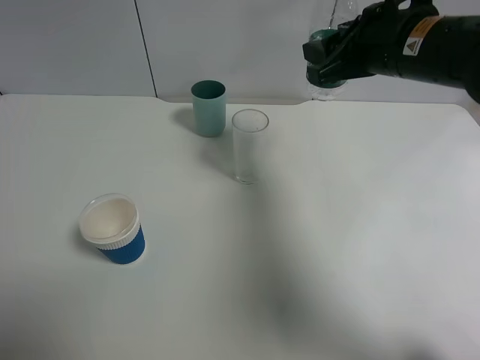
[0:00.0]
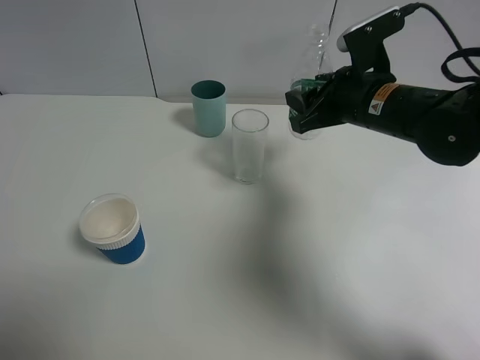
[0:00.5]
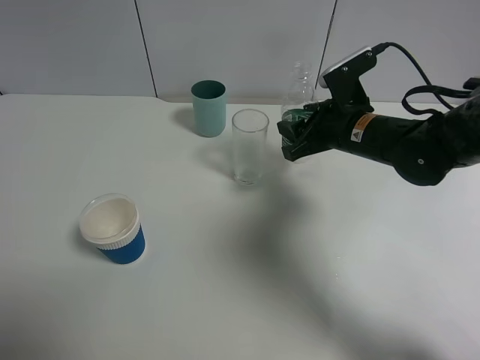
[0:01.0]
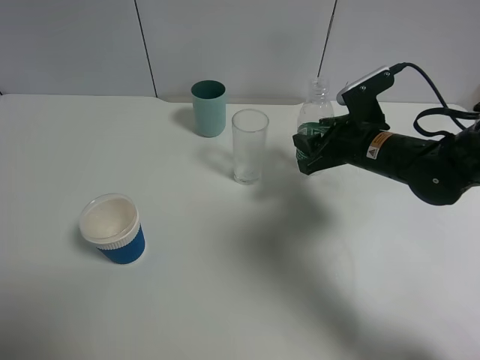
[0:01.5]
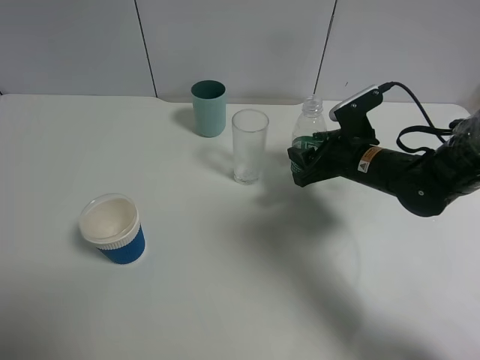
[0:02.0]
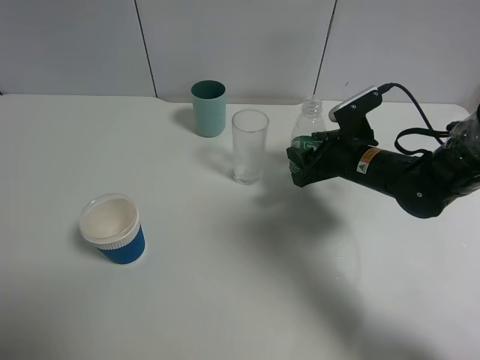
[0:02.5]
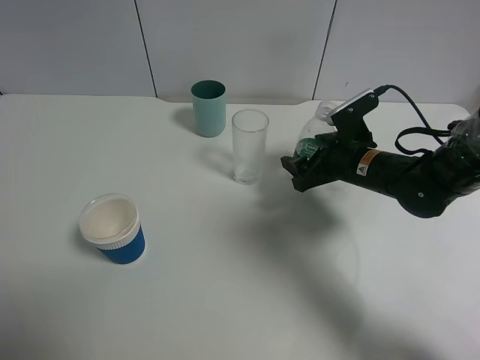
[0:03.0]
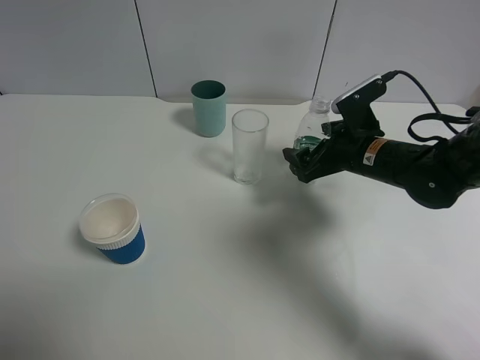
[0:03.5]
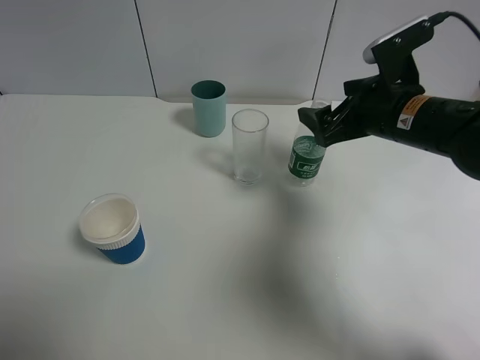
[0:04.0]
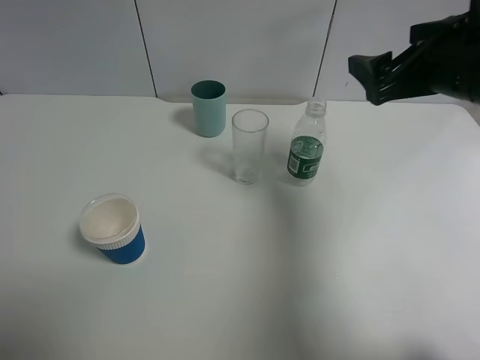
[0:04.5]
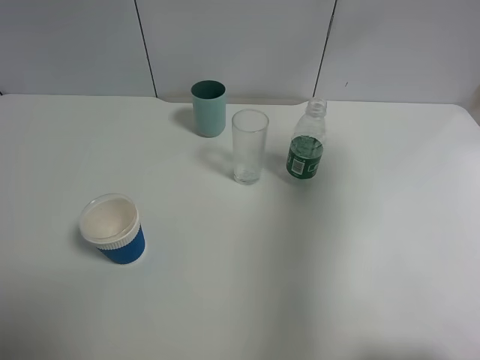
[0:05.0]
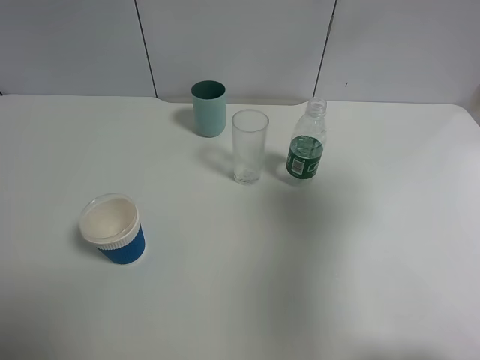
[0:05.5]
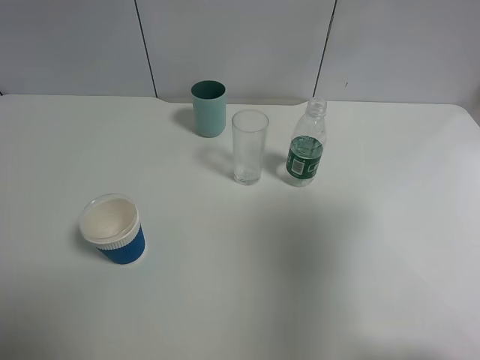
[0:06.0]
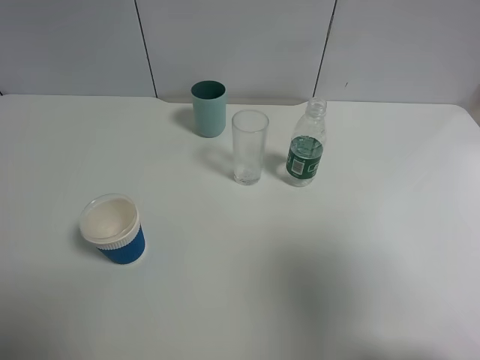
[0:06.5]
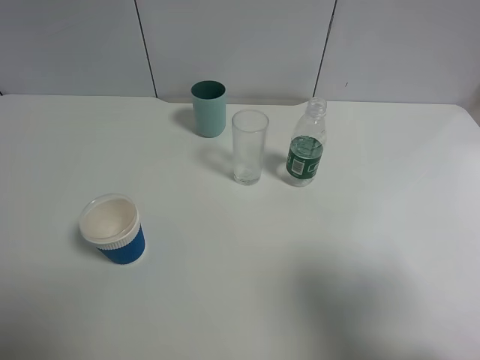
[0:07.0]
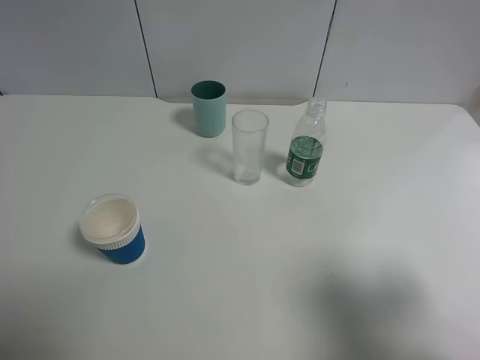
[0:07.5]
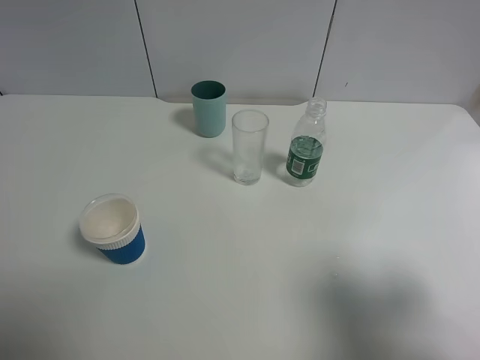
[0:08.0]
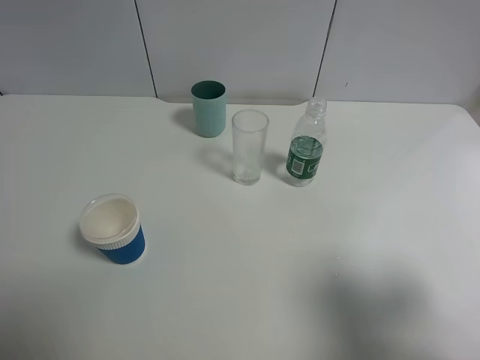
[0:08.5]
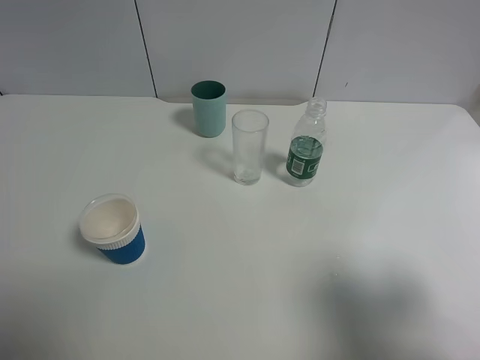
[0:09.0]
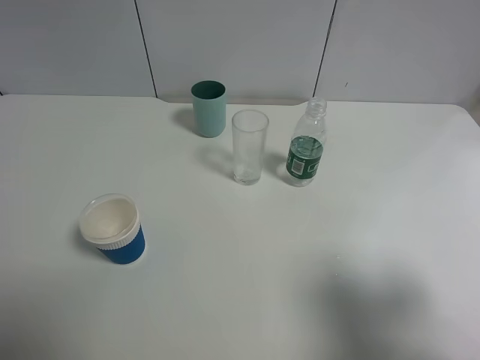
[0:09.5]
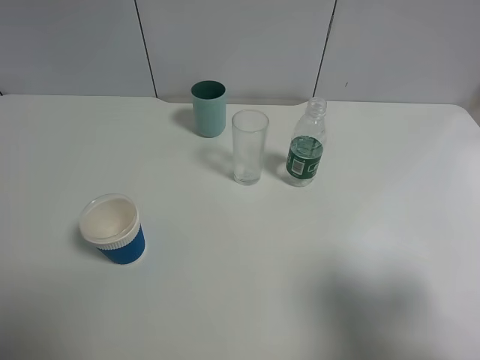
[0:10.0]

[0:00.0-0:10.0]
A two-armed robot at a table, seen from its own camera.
Task of the whole recording: use a gripper to hold the bottle of the drink and pour it into a random cup.
Step, 0:00.0 to 0:03.5: Place the mineral water bottle on the table with the right gripper.
0:00.0 to 0:02.0: The right gripper is displaced downward by about 15 cm.
0:02.0 to 0:04.0: The right gripper heads upward, covering approximately 10 cm, and opens up.
0:04.0 to 0:06.0: The right gripper shifts some 30 cm backward, upward and to the right.
0:06.0 to 0:08.0: The right gripper moves downward, about 10 cm.
0:08.0 to 0:10.0: The two grippers keep their place.

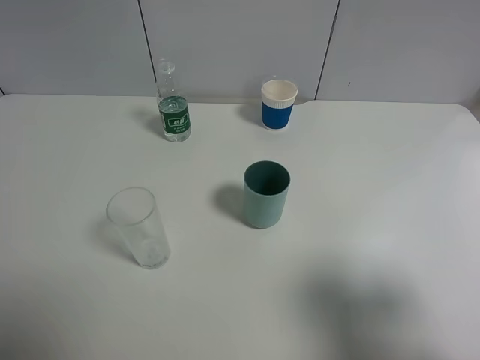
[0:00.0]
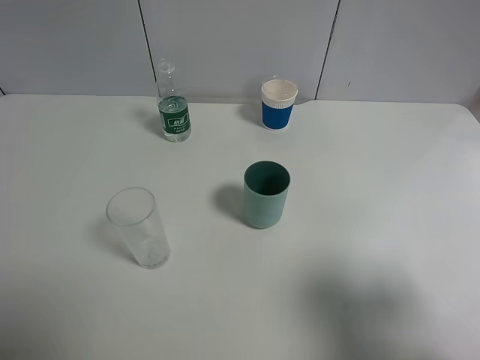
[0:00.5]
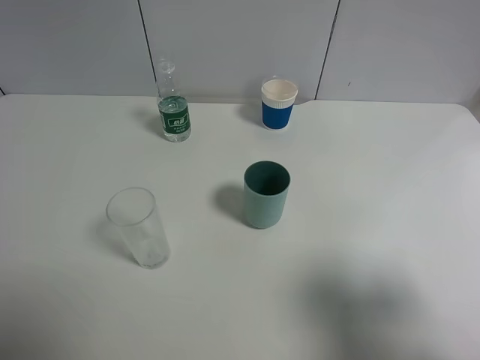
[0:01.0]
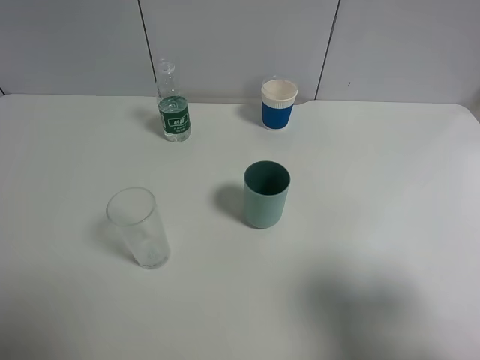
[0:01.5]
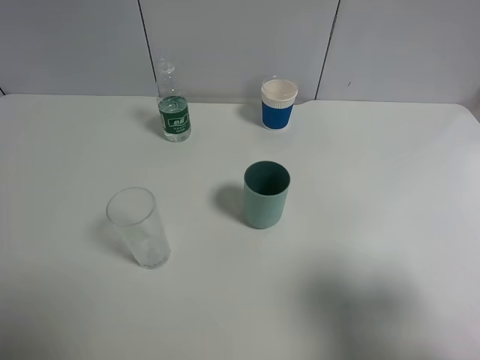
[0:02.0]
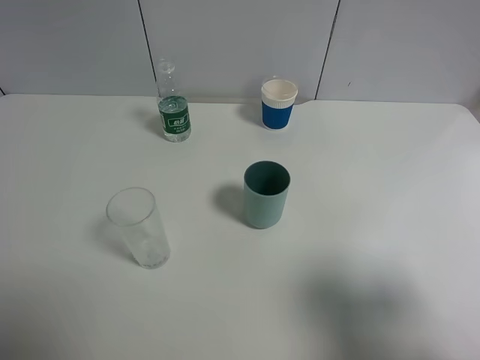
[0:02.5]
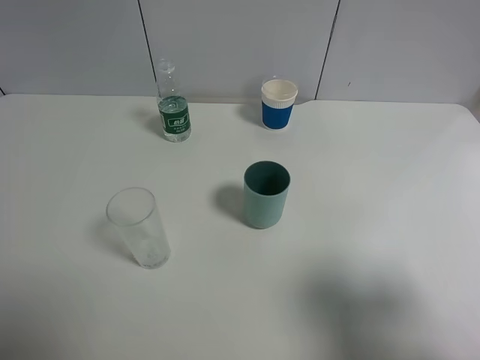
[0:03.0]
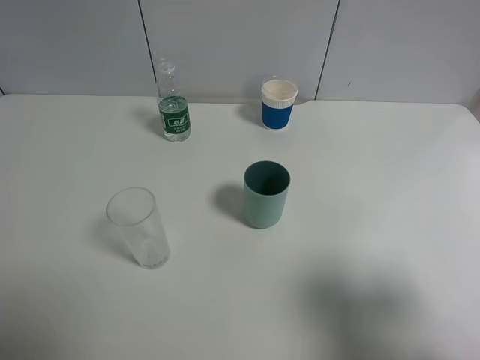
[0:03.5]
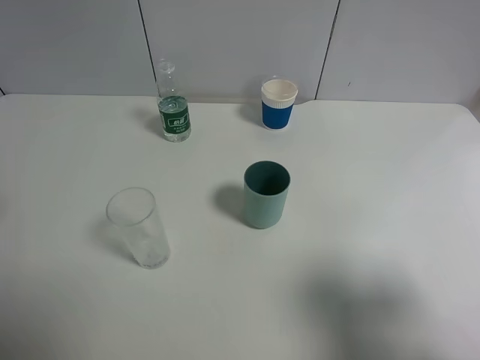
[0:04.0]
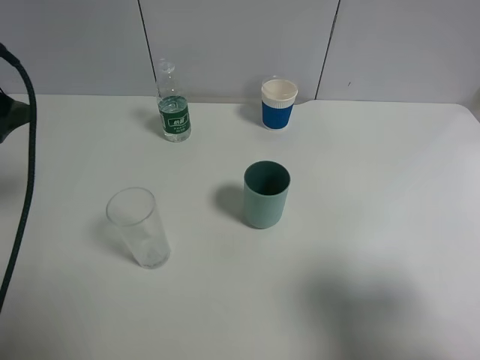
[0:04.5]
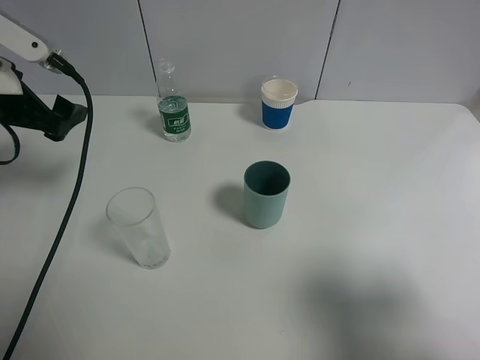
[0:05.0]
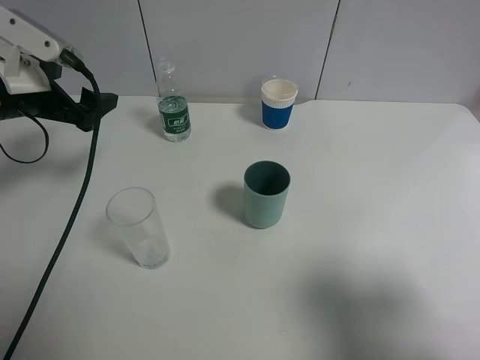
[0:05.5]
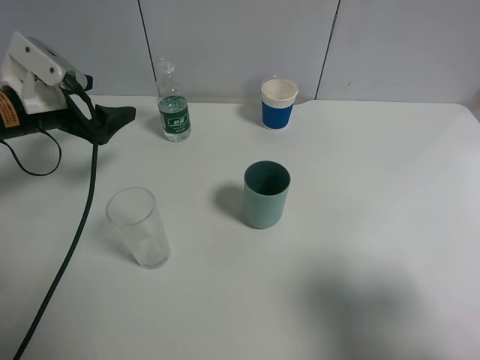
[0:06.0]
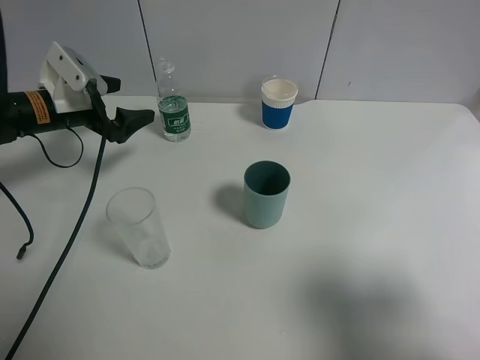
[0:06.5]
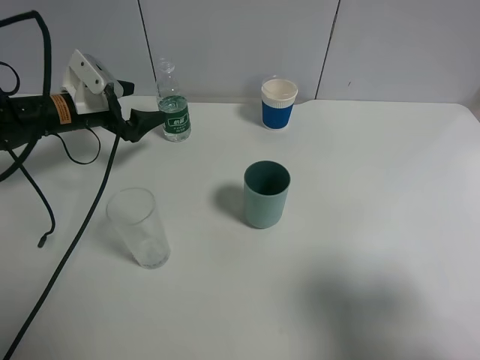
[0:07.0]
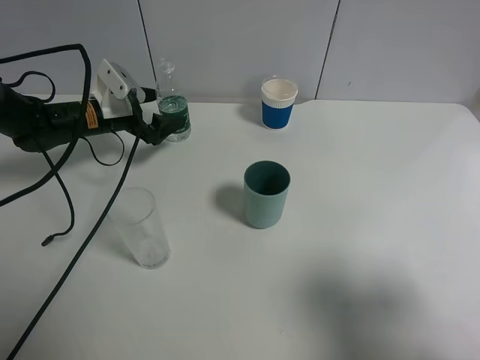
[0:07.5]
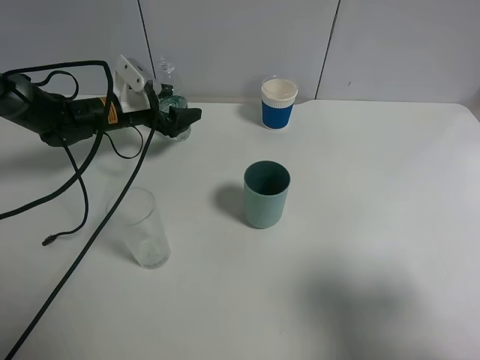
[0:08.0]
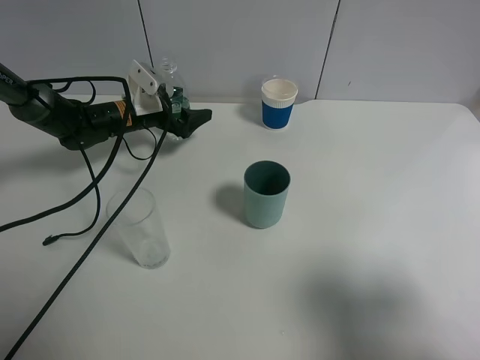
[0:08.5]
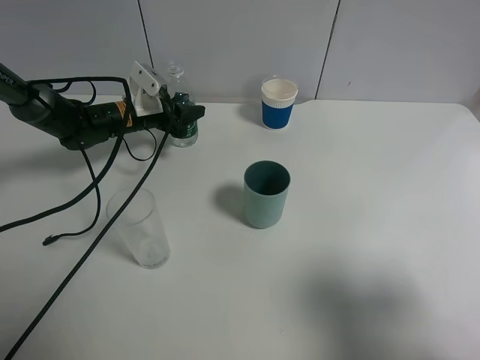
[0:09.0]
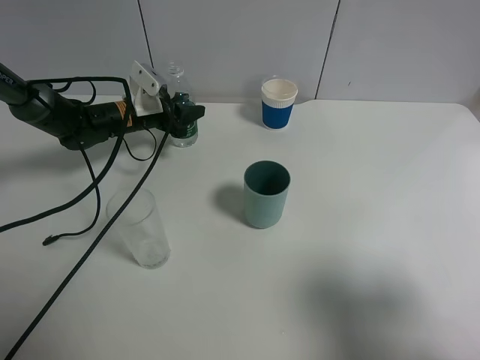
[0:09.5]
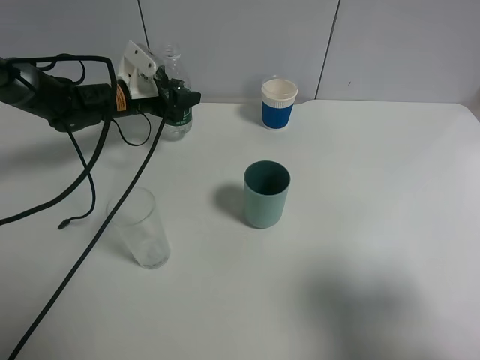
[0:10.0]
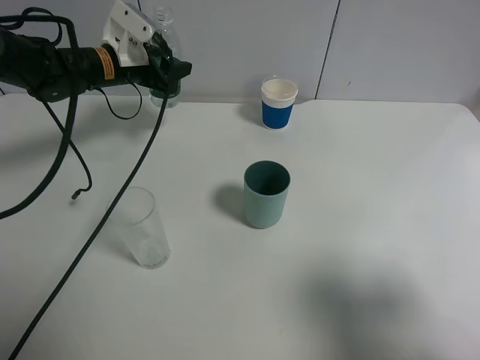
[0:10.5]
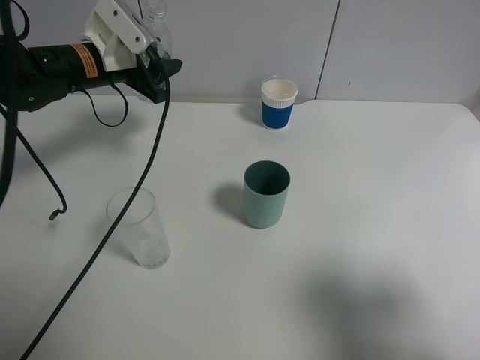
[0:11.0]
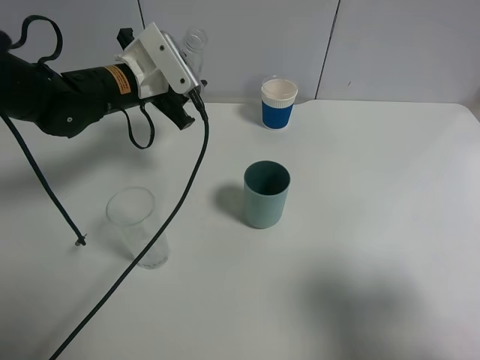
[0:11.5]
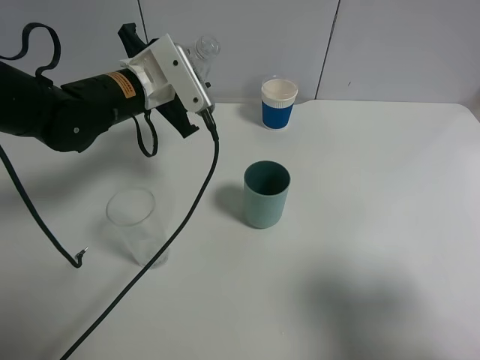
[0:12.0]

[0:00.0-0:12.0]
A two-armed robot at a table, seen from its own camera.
Task of the whole recording: use a gripper to hold the bottle of the drink and pour it into a random cup.
Step, 0:00.0 to 0:09.0: Grasp the mineral water bottle with the left gripper.
0:00.0 to 0:02.0: The two grippers keep their place.
0:04.0 to 0:06.0: The left gripper heads forward and downward, covering about 20 cm.
0:06.0 to 0:08.0: The left gripper travels forward, downward and to the right by some 15 cm.
0:08.0 to 0:10.0: The left gripper closes its fingers.
0:10.0 to 0:12.0: The left gripper shifts some 15 cm backward, upward and to the right.

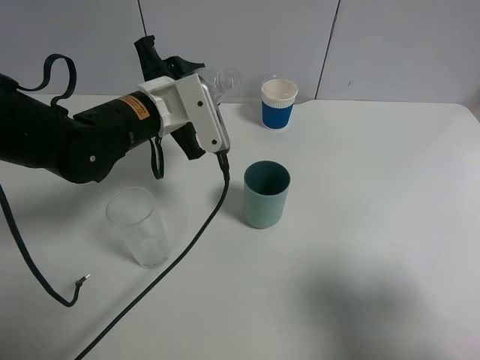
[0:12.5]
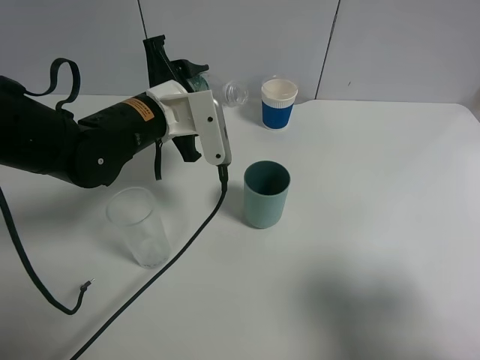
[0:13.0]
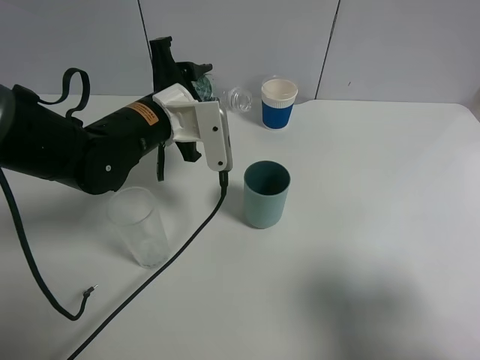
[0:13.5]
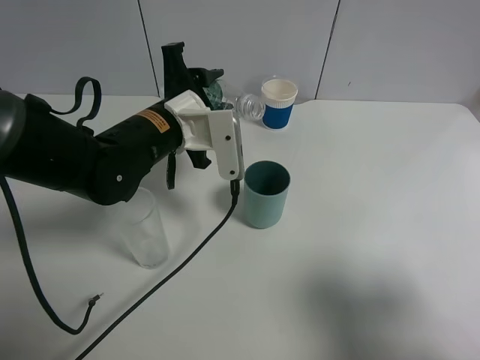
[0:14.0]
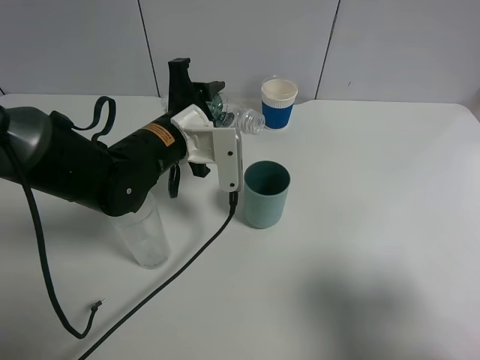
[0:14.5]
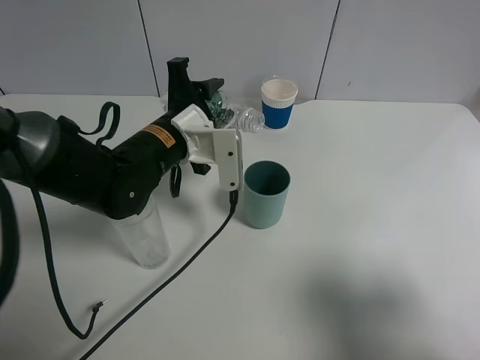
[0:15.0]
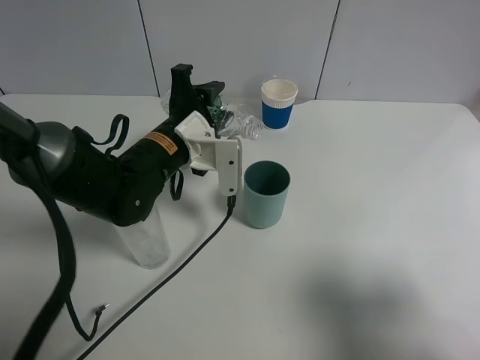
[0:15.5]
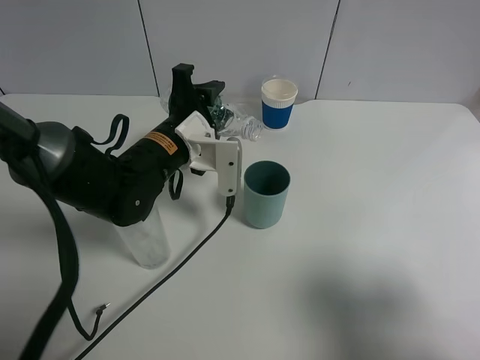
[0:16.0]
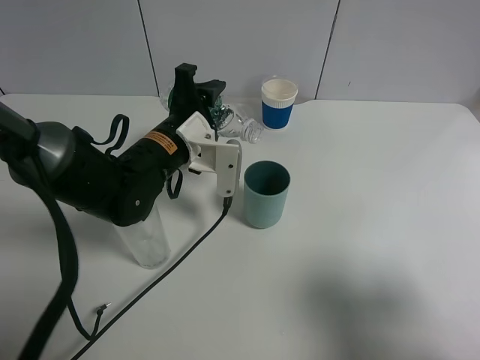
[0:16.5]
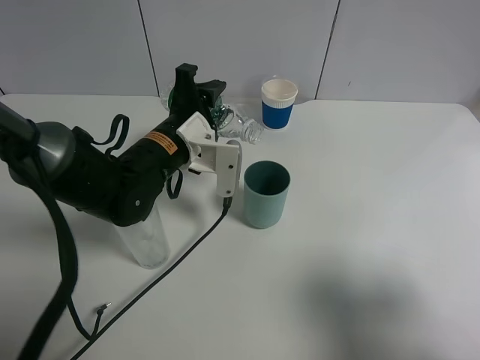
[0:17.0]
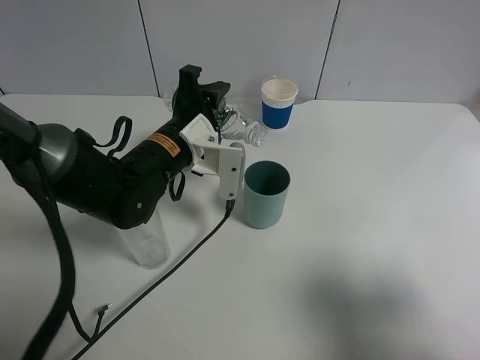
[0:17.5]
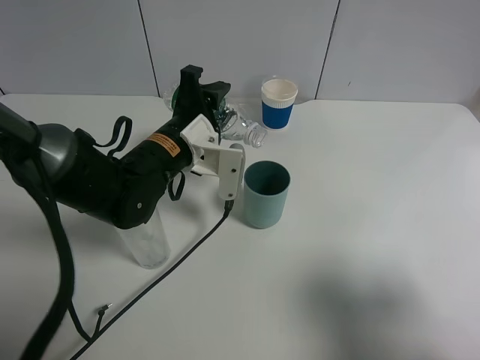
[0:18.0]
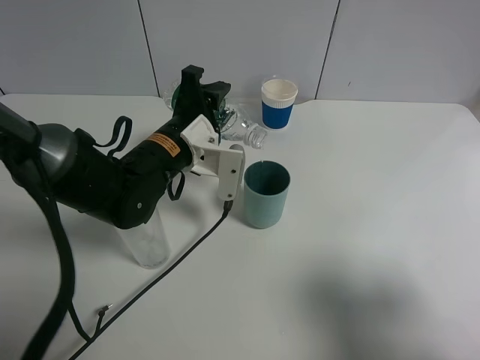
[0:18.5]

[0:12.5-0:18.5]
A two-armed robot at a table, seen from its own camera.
Task of the whole recording: use a gripper to hold the bottle of the drink and pour it into a random cup.
0:12.5 to 0:14.5: There are only small adjustments of the grippers.
0:14.5 to 0:16.5: The grippers make only small movements.
0:16.5 to 0:18.5: The two grippers keep their place.
